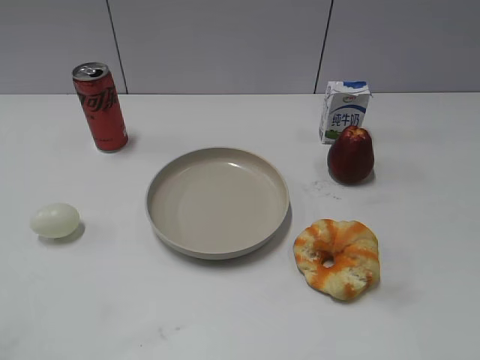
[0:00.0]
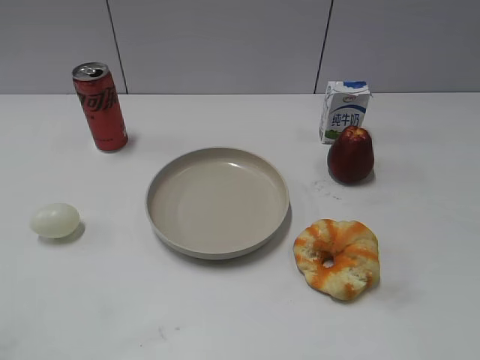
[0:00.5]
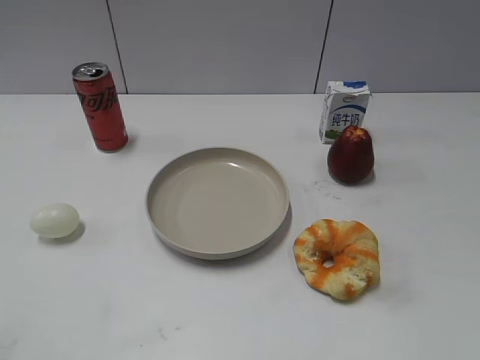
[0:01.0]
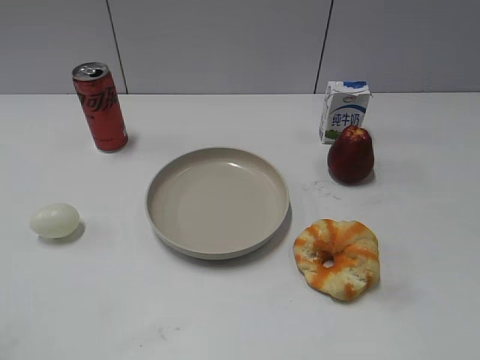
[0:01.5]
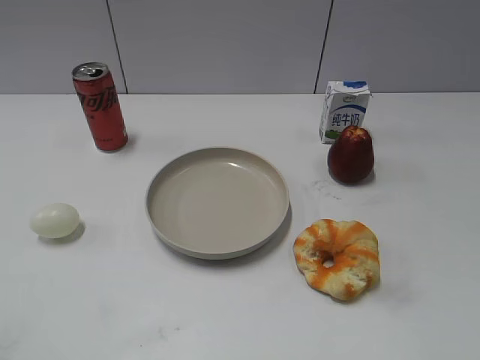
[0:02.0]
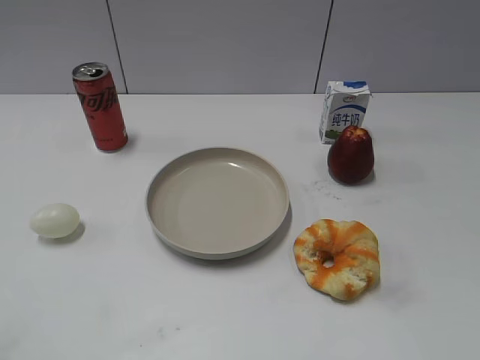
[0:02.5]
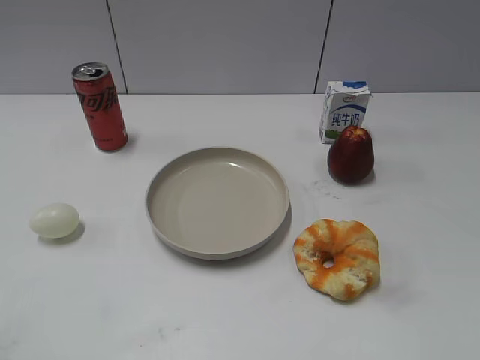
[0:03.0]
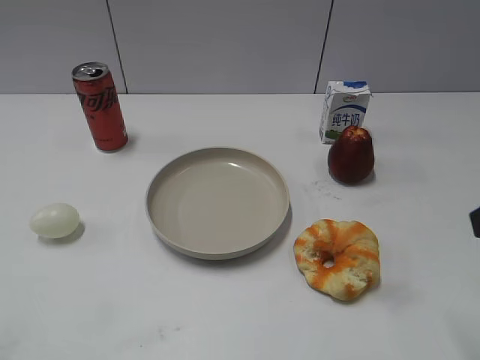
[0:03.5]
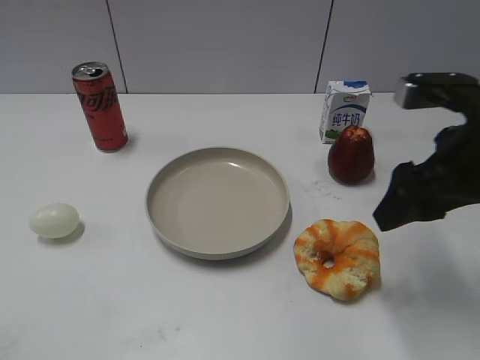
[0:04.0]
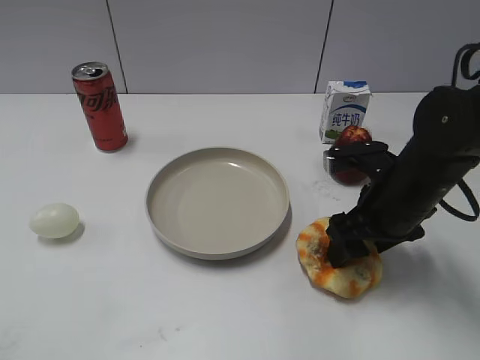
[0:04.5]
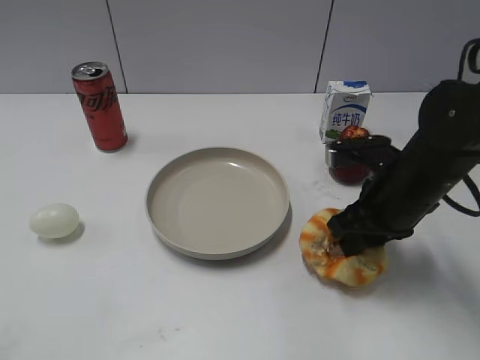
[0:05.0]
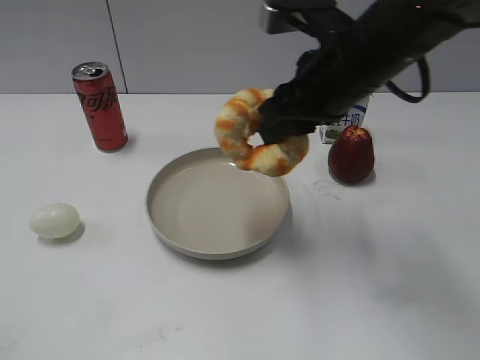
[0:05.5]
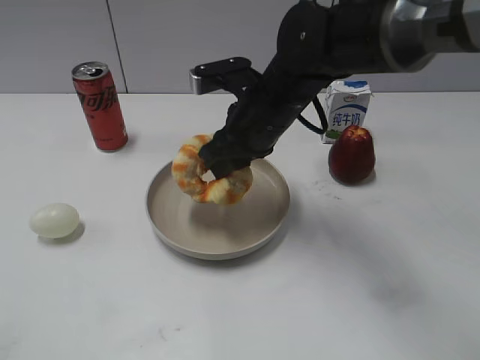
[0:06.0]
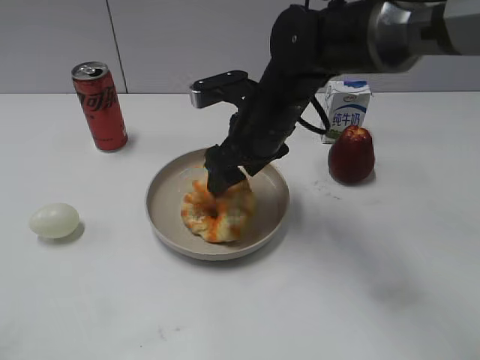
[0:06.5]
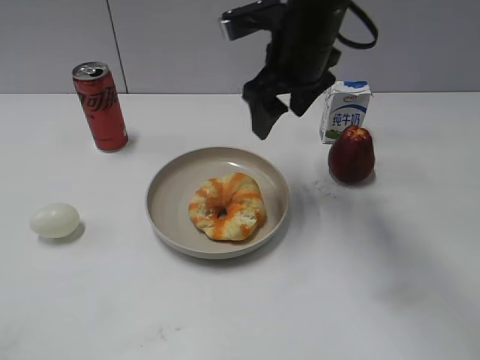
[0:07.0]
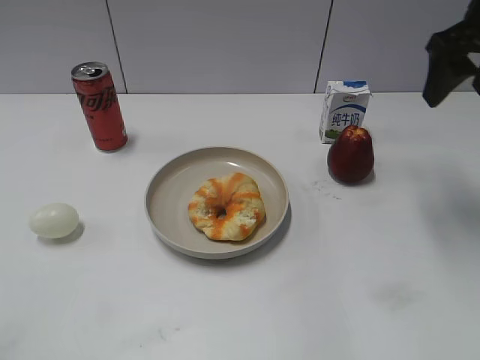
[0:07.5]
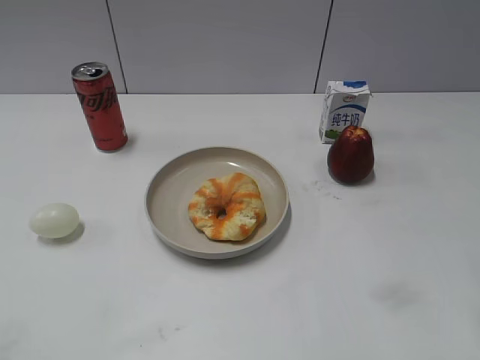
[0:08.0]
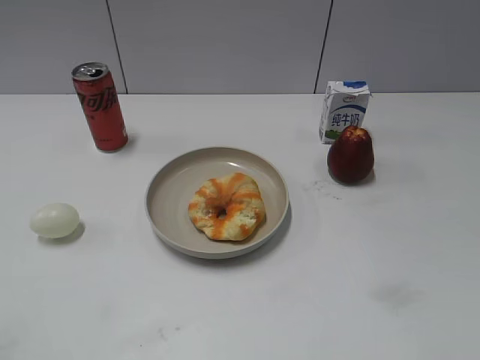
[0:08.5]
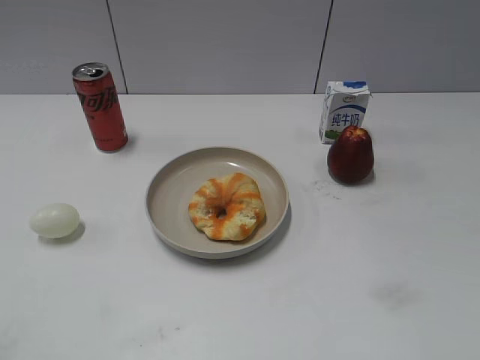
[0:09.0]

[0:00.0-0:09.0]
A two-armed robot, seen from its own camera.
Step, 0:02.0 to 0:04.5: Grasp the round bread with right gripper.
Step, 0:05.0 to 0:06.5: Place the round bread on the plate with right gripper.
0:00.0 to 0:02.0: The two grippers keep their place.
0:02.0 to 0:04.5: The right gripper heads forward, downward and to the left, covering some 35 cm, and opens and closes again.
0:04.5 to 0:07.0: The right gripper is displaced upward and forward by roughly 20 cm, travels to the left and back again, roughly 15 cm each way, and opens.
0:07.0 to 0:09.0: The right gripper heads backward, covering approximately 40 cm.

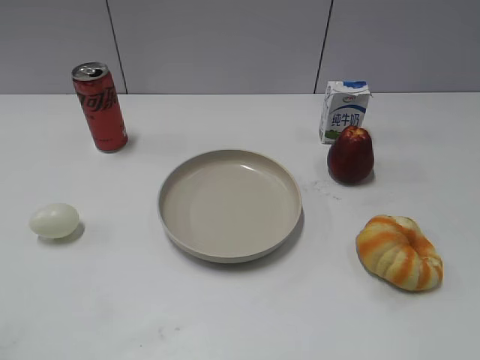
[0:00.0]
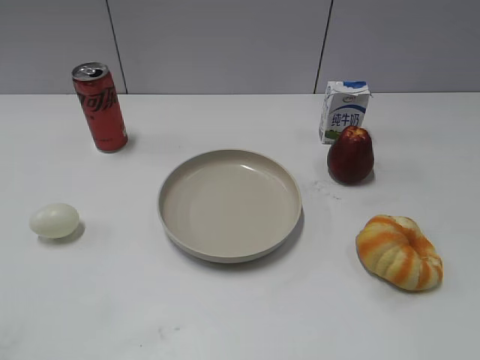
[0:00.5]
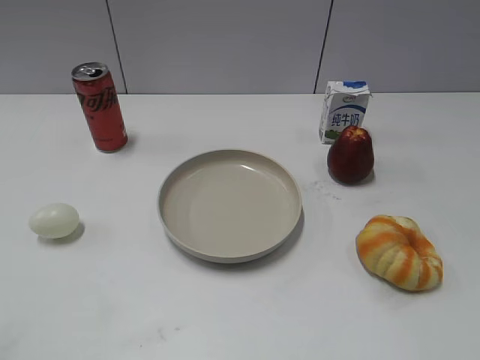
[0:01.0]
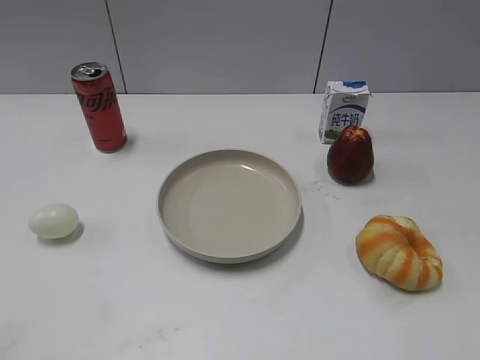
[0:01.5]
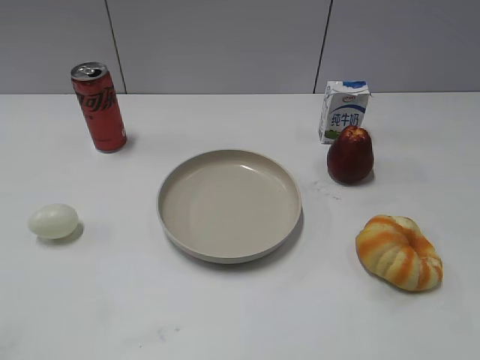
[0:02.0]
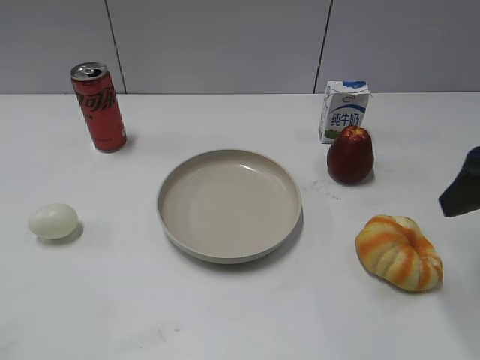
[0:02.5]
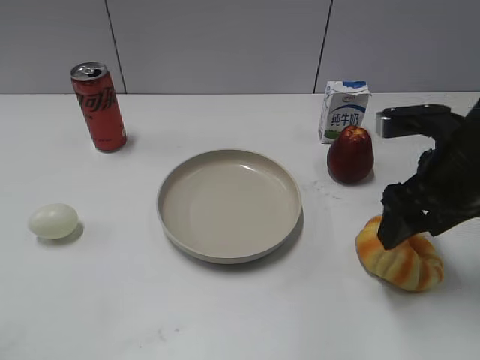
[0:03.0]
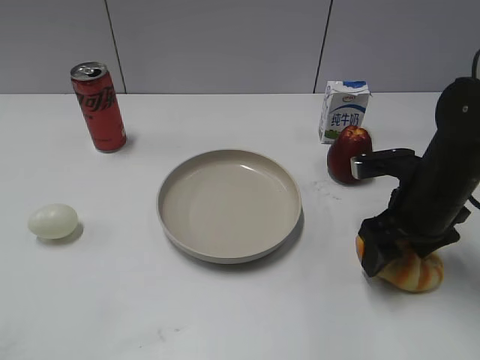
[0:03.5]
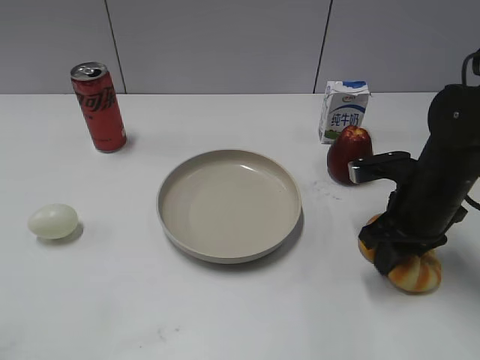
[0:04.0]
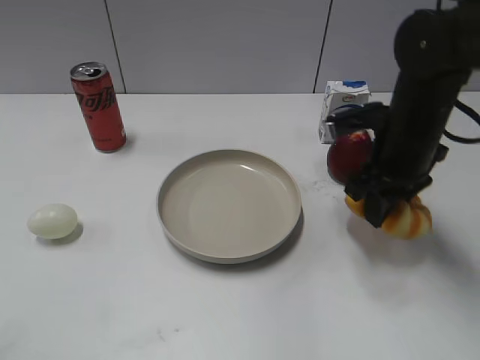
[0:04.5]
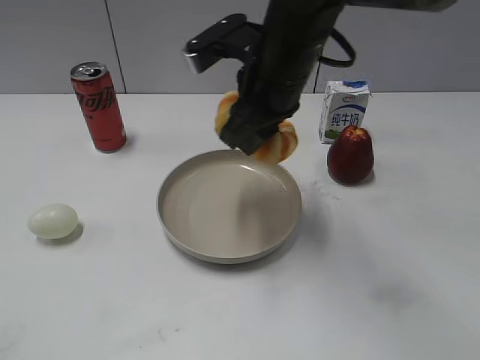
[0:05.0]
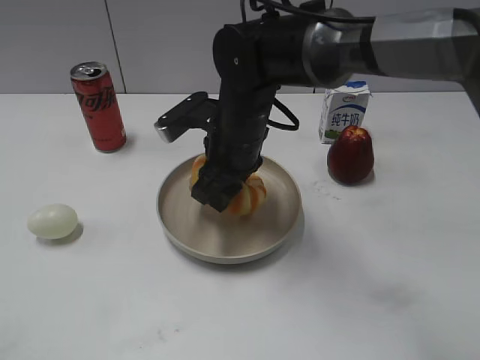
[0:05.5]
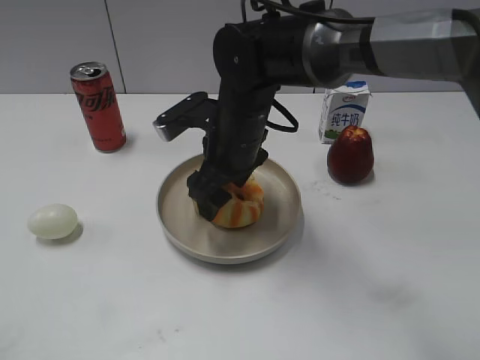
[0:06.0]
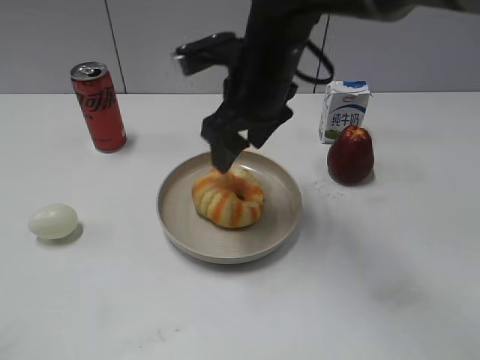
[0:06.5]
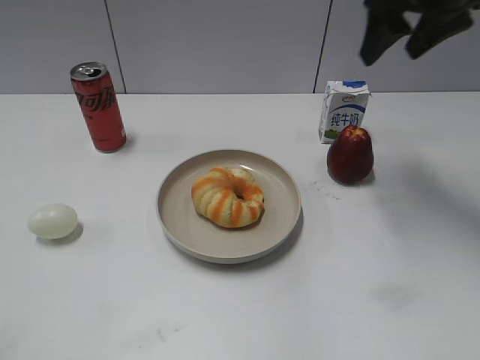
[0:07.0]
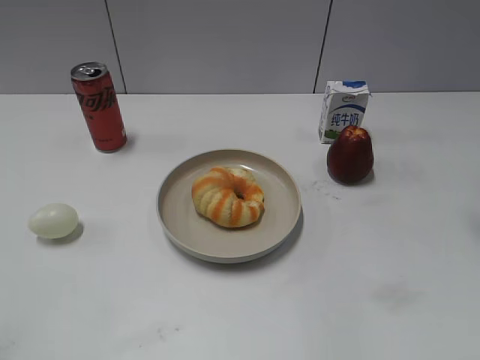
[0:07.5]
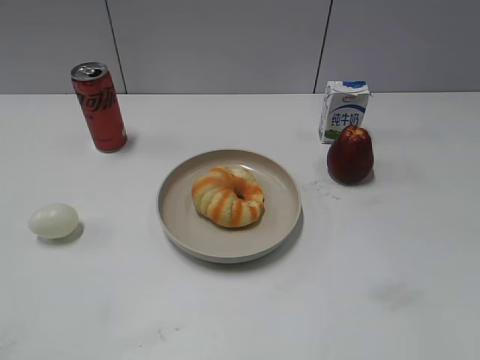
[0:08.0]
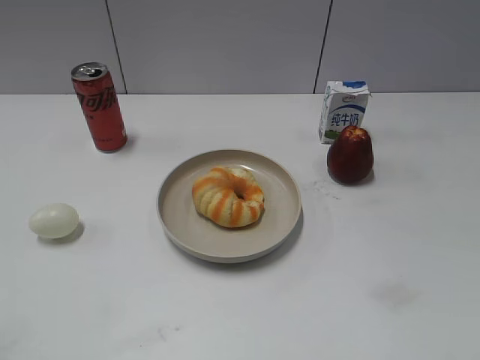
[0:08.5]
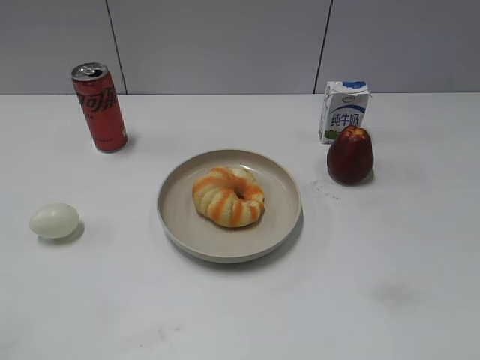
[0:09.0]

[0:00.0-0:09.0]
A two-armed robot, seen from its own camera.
Step, 0:01.5 to 0:04.0: Grasp the round bread with right gripper.
Step, 0:04.5 to 0:06.5: Place the round bread on the plate with right gripper.
0:02.0 to 0:04.5: The right gripper is displaced forward, to the left and downward by about 25 cm, and closes up.
0:04.5 to 0:07.0: The right gripper goes roughly 15 cm upward, reaches some 20 cm to the left, then returns, and opens up.
0:07.0 to 0:09.0: The right gripper moves backward, approximately 40 cm.
